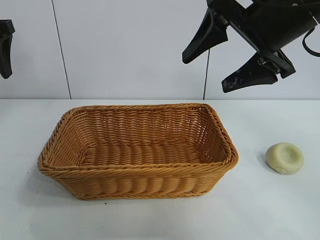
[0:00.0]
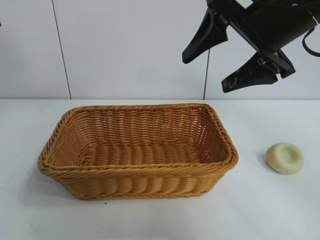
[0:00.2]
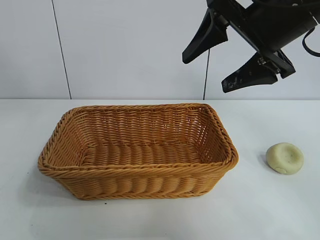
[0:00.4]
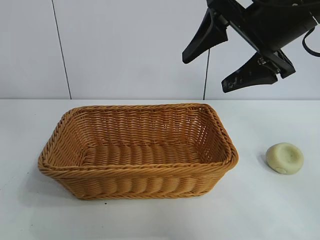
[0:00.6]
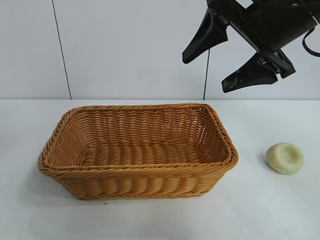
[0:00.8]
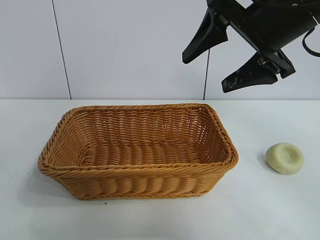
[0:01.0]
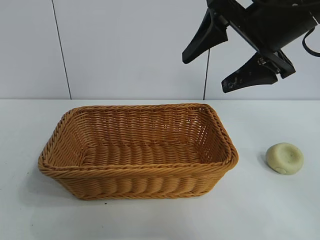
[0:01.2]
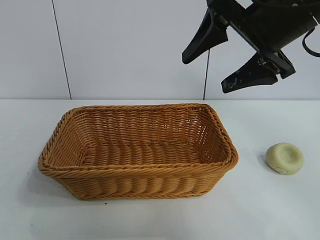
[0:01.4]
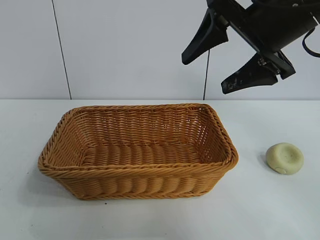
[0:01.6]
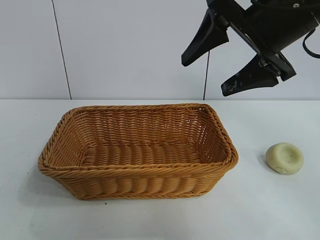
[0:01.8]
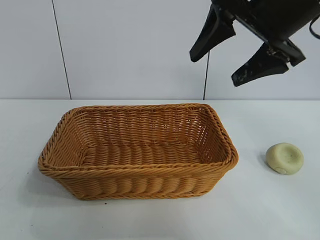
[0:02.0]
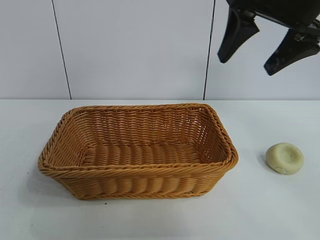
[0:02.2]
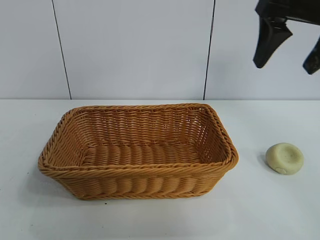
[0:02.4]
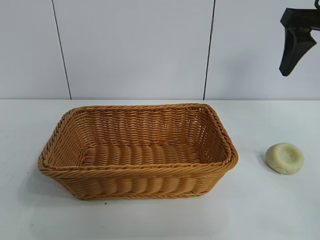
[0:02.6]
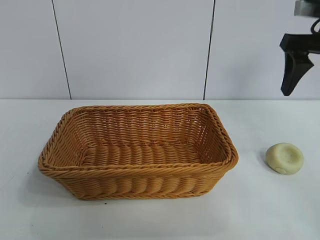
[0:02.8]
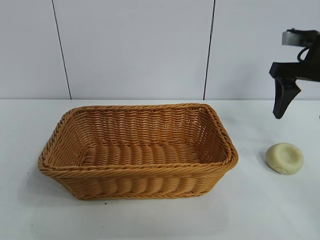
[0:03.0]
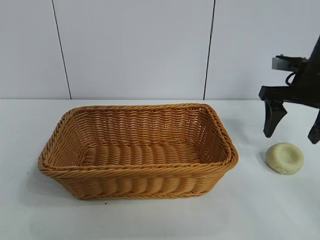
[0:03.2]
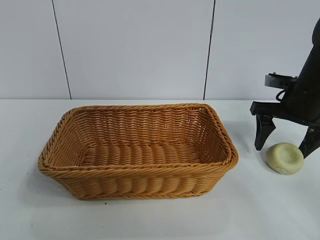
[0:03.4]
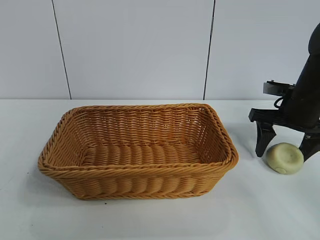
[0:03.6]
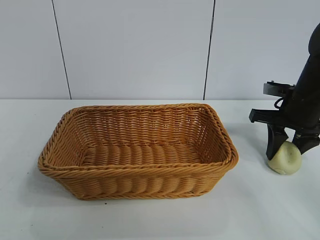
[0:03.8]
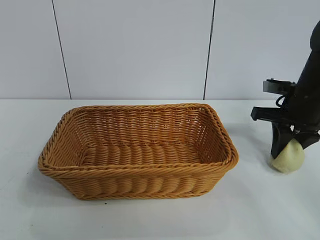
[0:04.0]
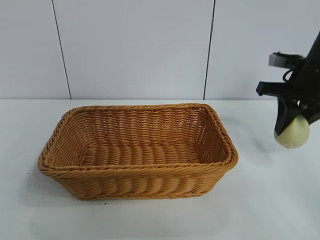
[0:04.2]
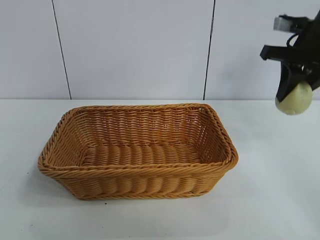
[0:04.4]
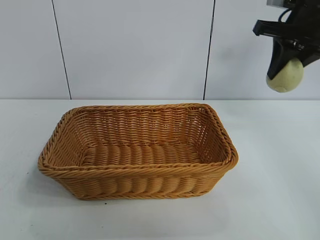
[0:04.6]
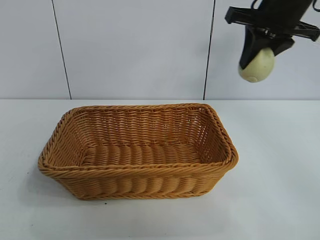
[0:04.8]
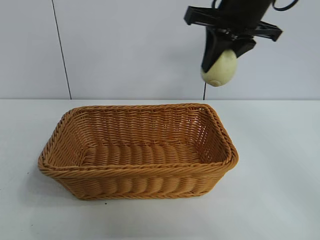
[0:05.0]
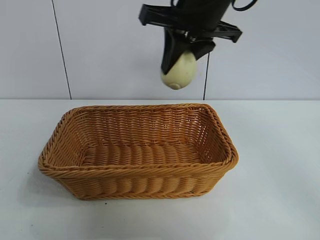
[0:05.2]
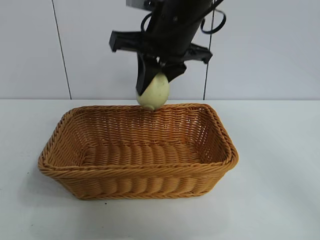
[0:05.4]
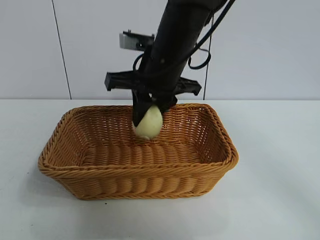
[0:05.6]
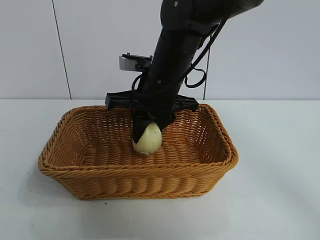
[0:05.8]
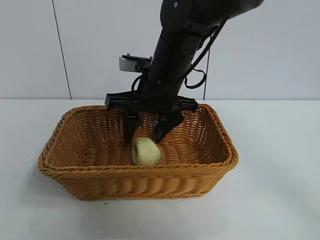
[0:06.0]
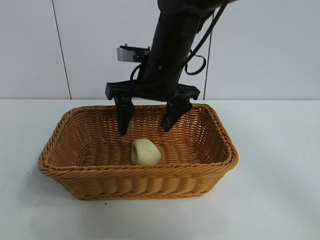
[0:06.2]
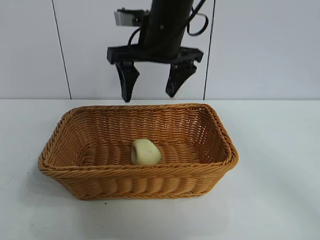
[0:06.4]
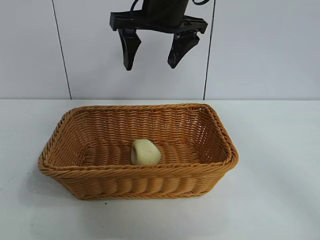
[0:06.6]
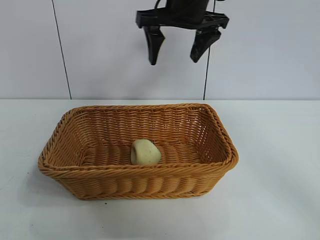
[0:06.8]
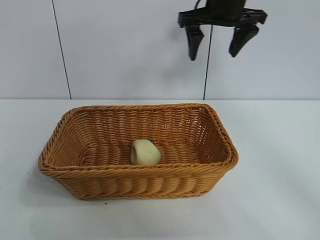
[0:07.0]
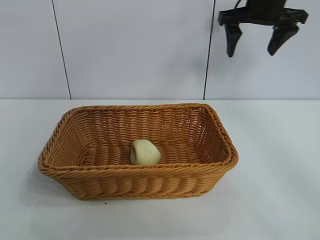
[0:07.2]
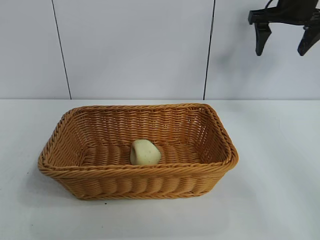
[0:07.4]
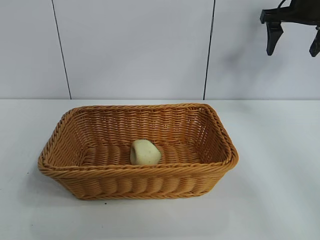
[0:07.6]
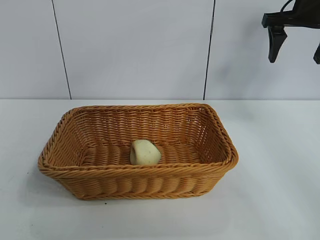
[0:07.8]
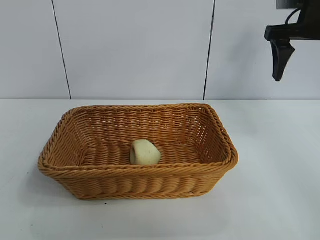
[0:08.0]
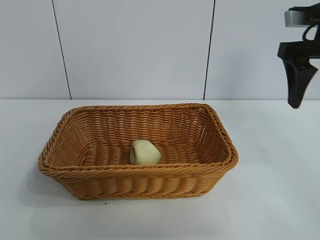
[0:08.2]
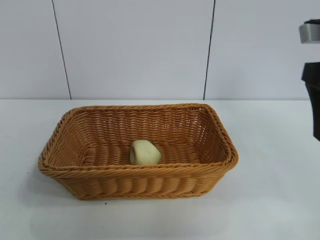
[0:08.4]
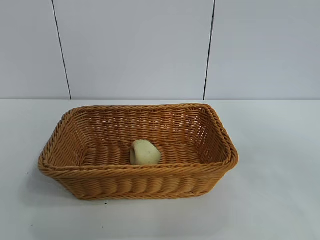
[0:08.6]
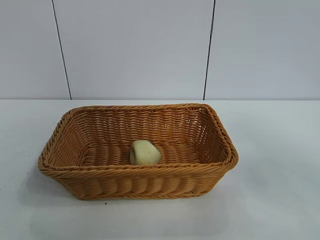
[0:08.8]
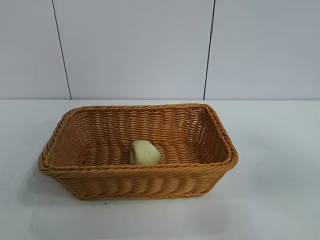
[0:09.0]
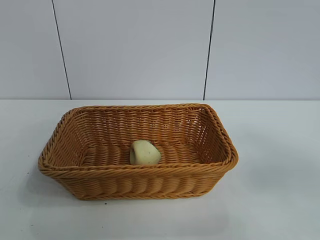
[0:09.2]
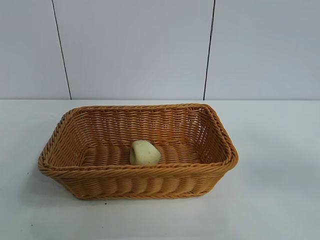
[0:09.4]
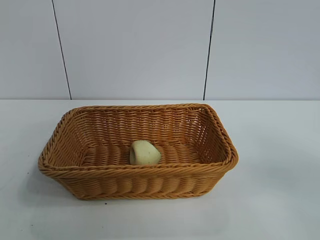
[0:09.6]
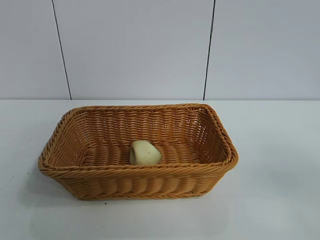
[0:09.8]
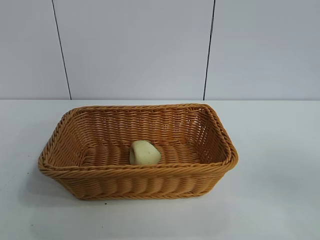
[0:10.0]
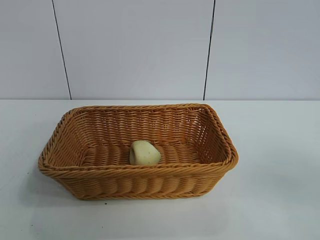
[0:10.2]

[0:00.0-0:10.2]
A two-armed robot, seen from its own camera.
Task of the whole recording: pick up the egg yolk pastry and put it into the basket.
Step, 0:00.0 to 0:03.8: Grasp egg yolk pastry with right gripper.
Step, 0:04.2 to 0:06.0: Place the egg yolk pastry in the basket with right gripper.
